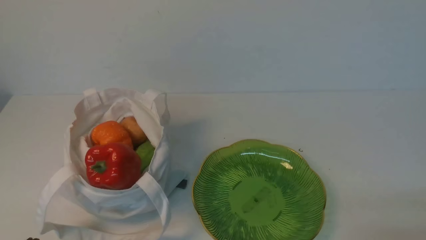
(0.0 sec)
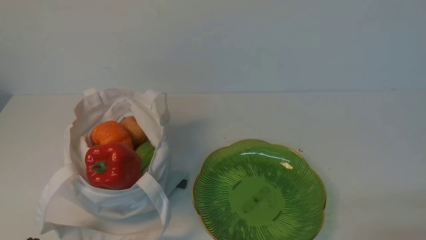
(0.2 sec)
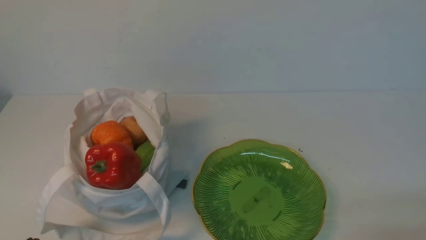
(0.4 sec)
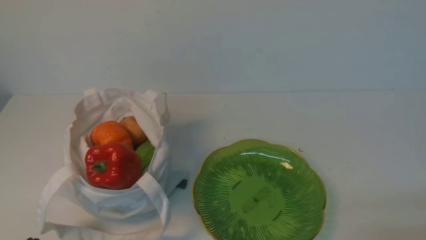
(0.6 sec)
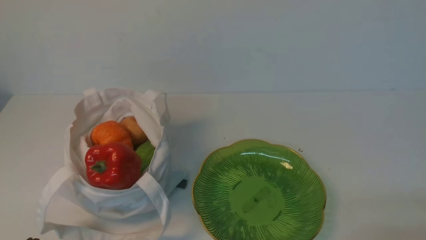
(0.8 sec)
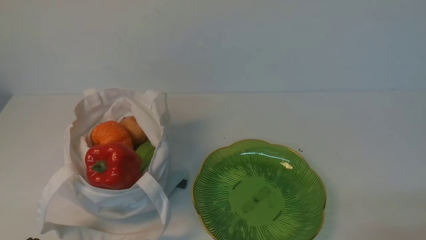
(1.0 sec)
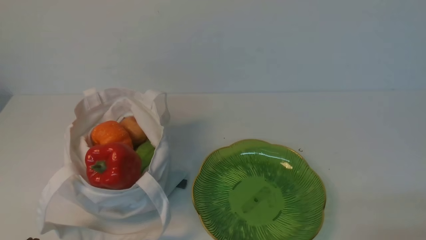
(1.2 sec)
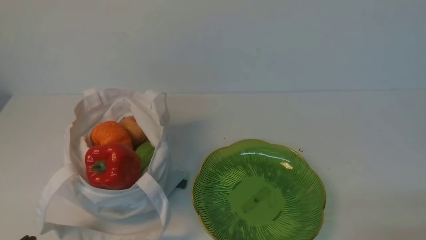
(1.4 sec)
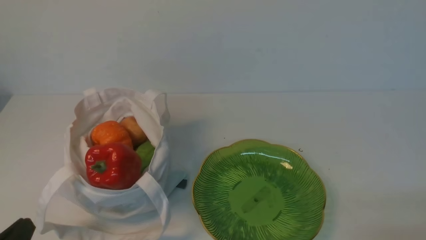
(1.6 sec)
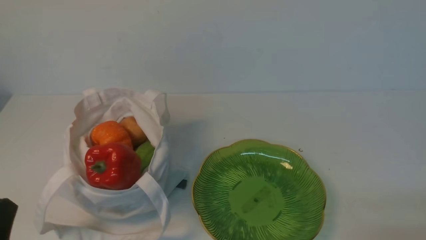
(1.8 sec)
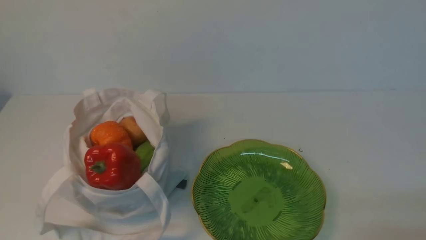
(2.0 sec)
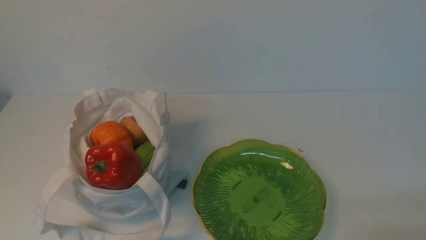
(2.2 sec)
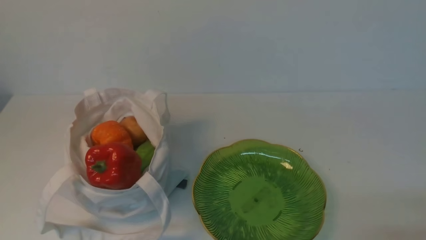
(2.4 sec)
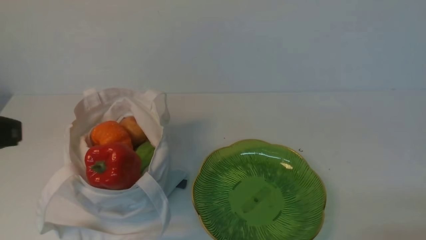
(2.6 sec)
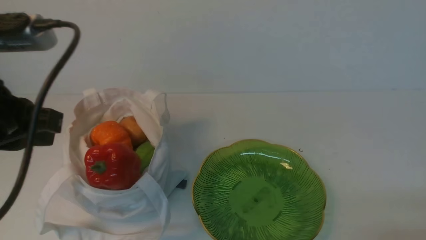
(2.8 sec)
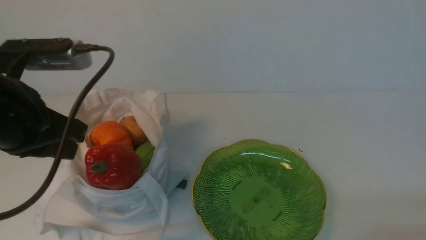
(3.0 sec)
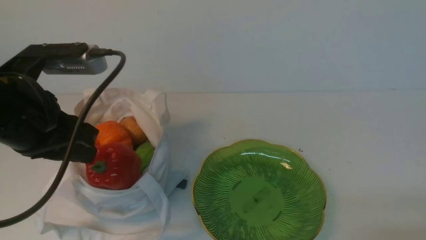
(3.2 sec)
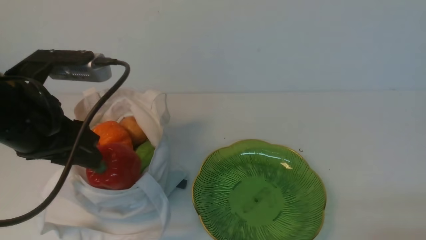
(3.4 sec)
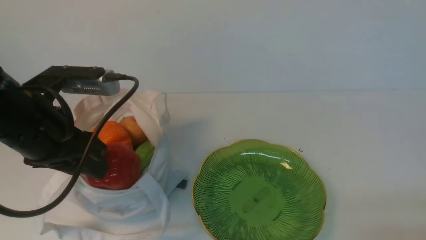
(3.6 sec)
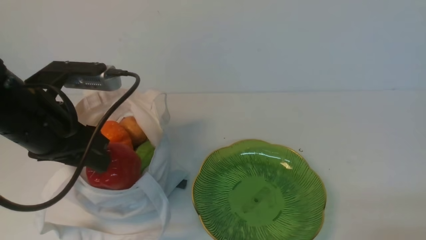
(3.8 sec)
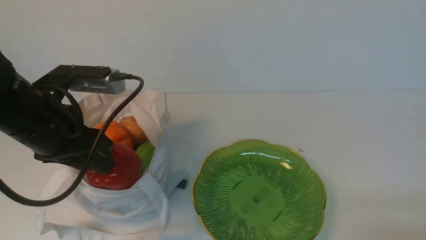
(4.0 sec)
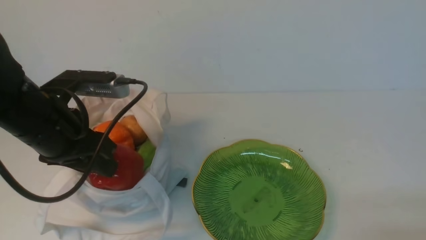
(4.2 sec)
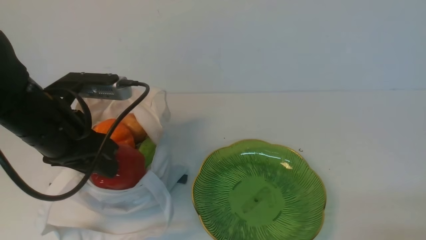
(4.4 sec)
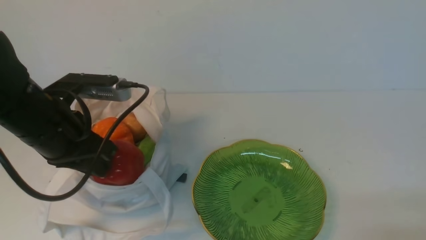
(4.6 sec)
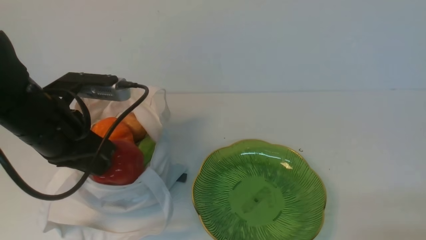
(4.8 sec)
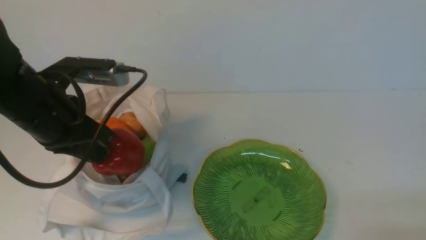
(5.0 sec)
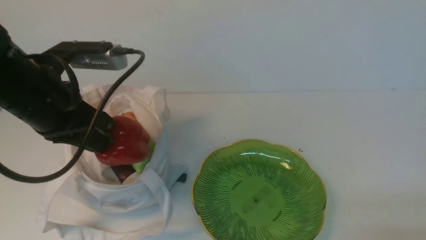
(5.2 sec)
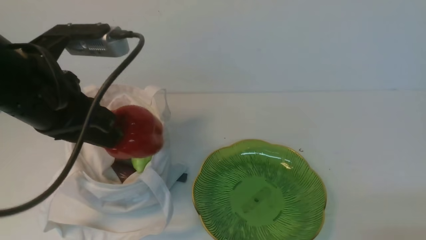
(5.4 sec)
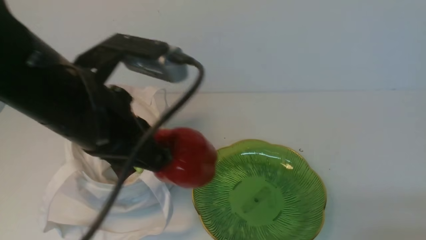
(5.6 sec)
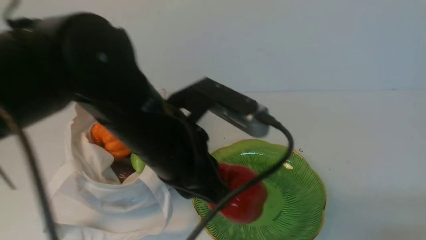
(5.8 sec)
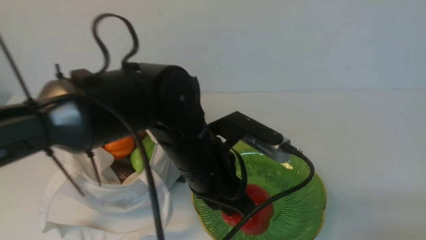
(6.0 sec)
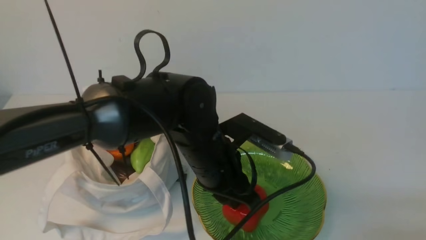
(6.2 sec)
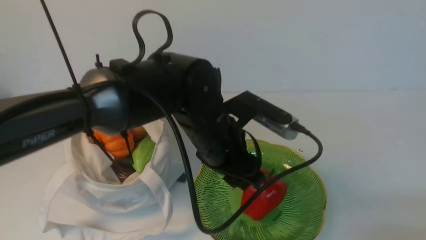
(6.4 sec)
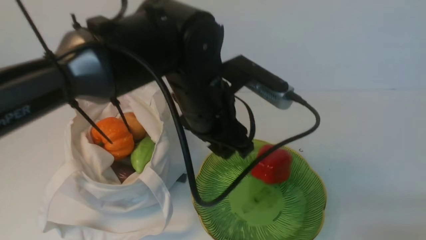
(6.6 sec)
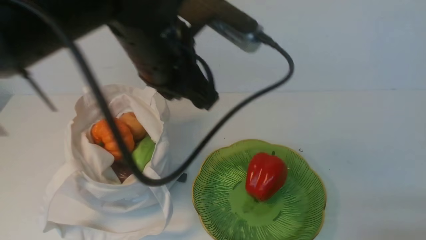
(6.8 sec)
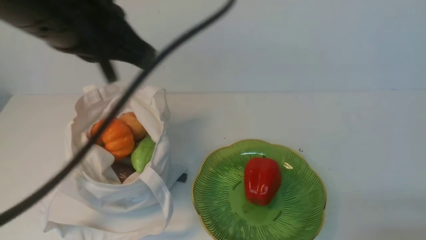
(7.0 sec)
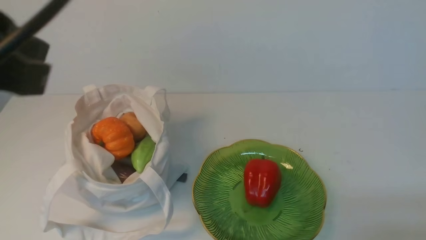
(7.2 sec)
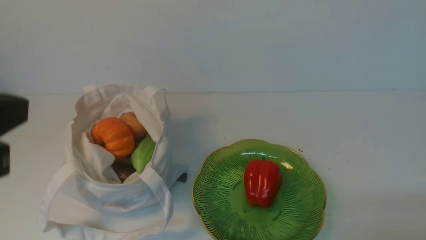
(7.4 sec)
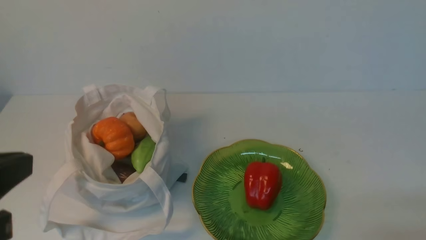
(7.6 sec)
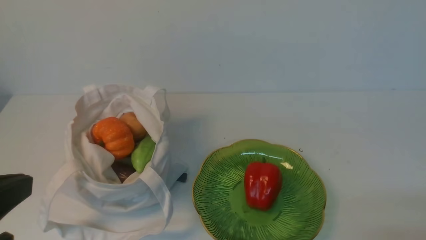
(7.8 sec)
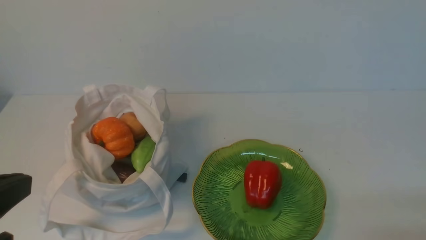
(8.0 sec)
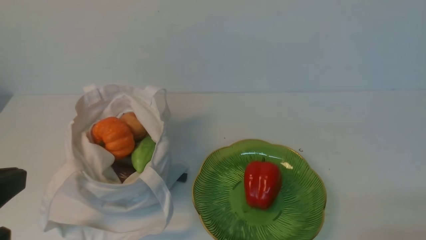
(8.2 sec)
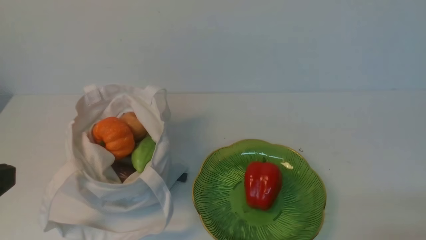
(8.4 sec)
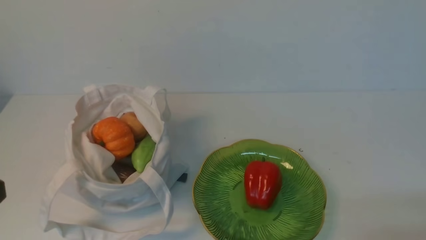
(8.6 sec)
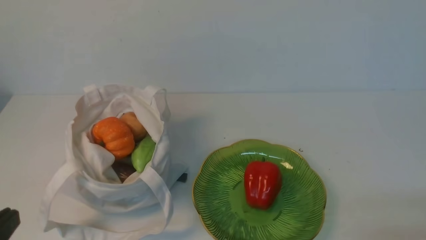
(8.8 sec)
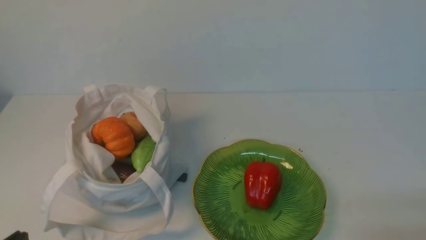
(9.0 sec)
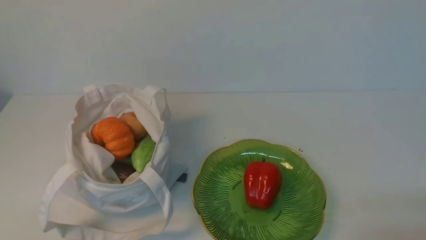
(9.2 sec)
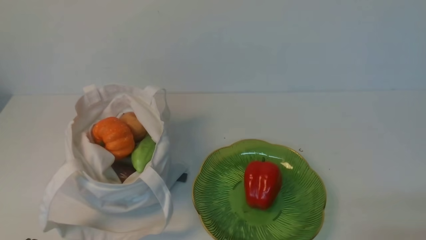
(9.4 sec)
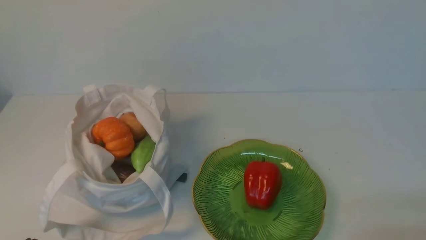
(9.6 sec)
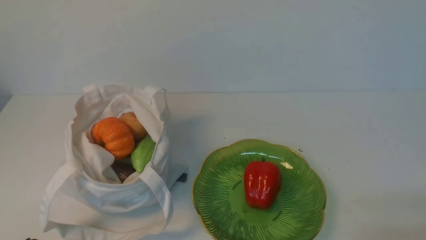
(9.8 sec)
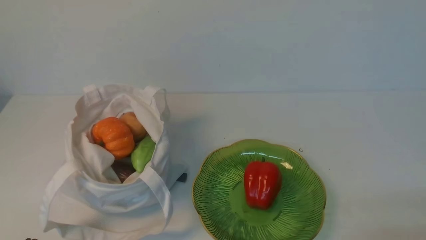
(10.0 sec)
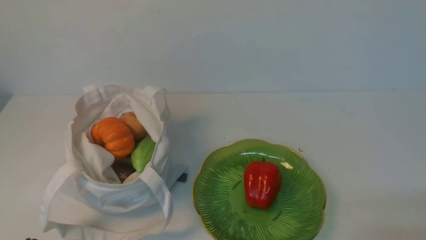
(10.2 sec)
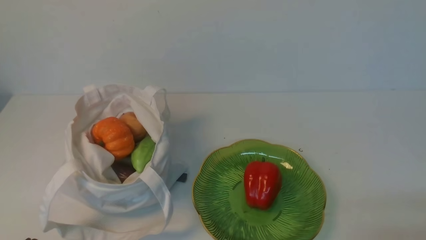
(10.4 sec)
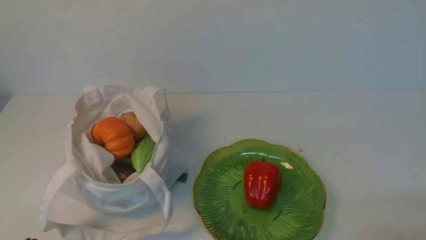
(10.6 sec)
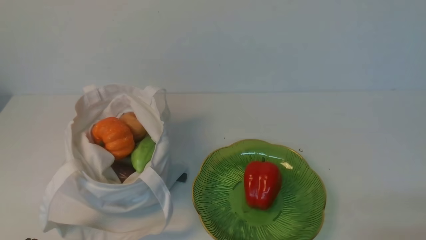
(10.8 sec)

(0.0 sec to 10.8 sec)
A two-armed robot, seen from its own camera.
Task of the whole recording: take vegetables from cloth bag on white table place on plate.
Step, 0.0 sec - 4.6 sec: Grasp the bell pepper with left gripper.
Step, 4.8 sec - 6.8 sec: Place the bell pepper on the plate with left gripper.
1.6 sec - 3.0 sec: The left gripper is displaced upward and forward by about 25 cm.
3.0 sec - 4.6 sec: The left gripper shifts roughly 10 cm downward and forward, and opens up.
4.6 sec - 6.2 sec: The left gripper travels to the right by roughly 20 cm.
6.2 sec - 7.8 sec: The left gripper goes roughly 30 cm to the left, backward and upward, and closes its fingers.
7.8 sec - 9.2 sec: The left gripper goes some 15 cm downward.
